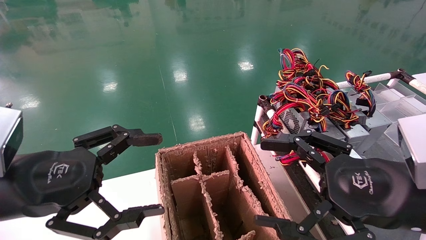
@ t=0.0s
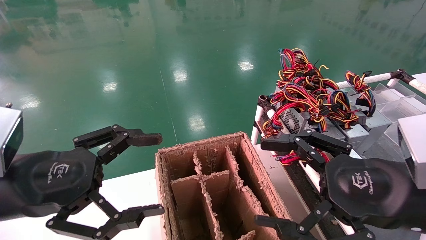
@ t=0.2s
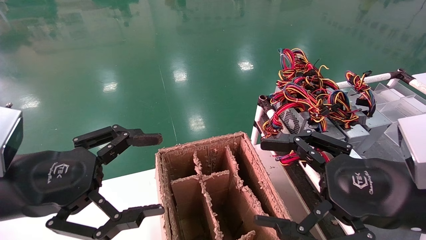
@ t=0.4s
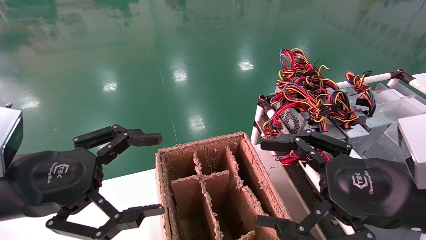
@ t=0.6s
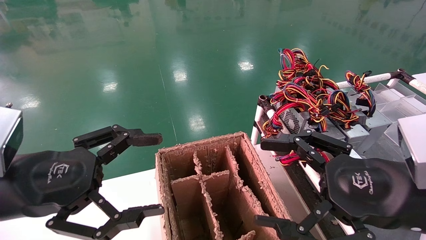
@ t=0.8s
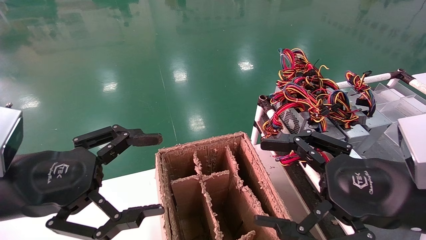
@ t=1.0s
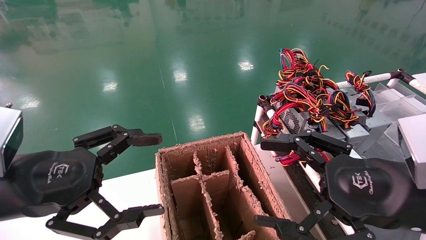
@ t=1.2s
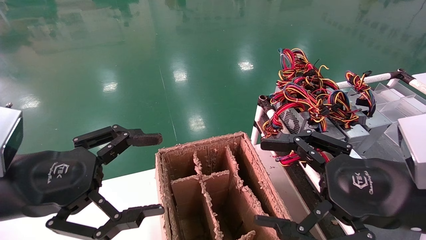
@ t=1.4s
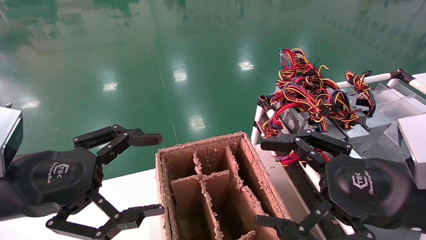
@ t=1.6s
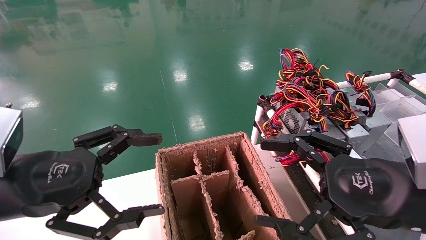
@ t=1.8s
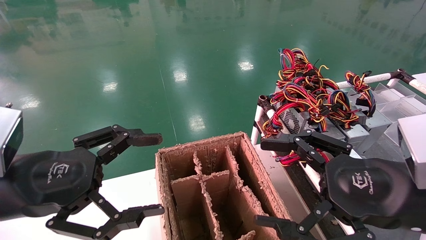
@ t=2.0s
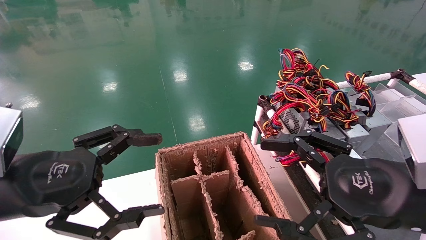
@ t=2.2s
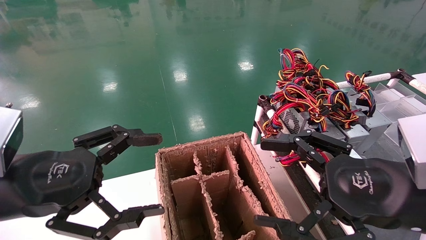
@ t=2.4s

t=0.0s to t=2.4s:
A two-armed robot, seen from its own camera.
t=0.0s to t=2.4s: Neither gripper changes place.

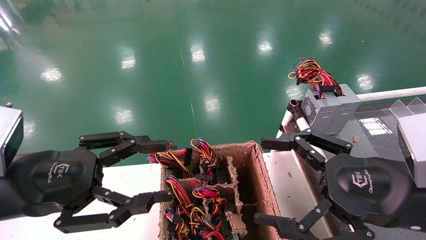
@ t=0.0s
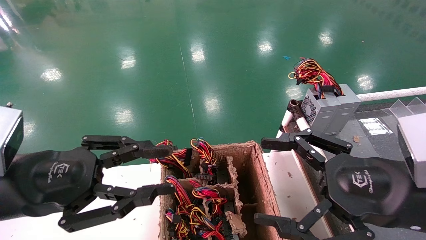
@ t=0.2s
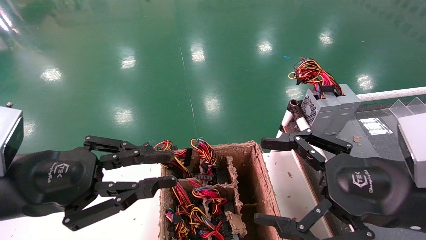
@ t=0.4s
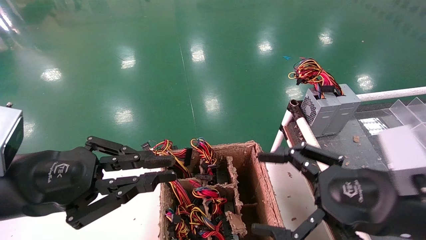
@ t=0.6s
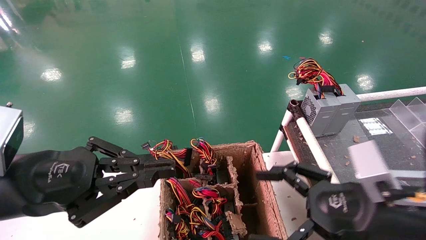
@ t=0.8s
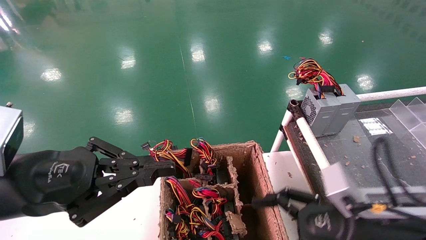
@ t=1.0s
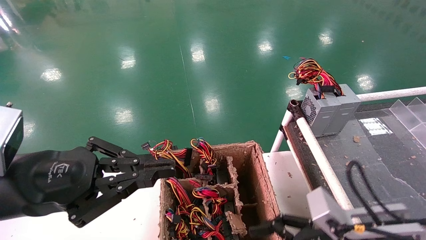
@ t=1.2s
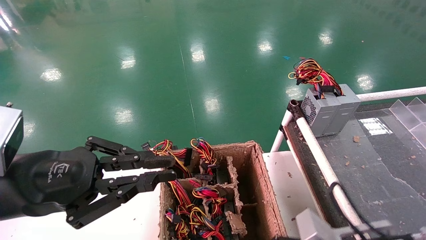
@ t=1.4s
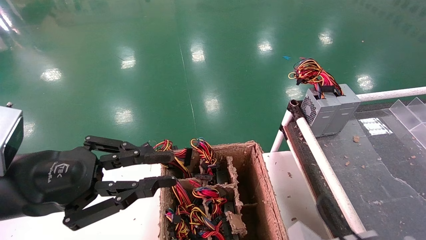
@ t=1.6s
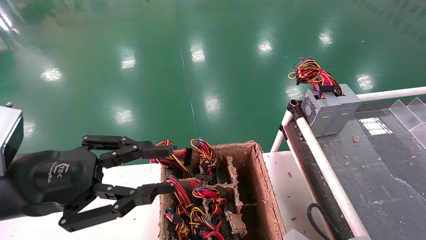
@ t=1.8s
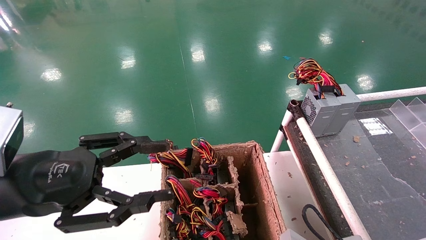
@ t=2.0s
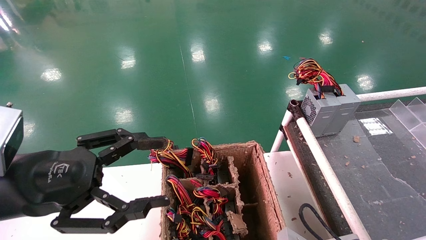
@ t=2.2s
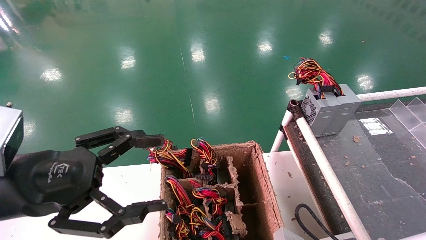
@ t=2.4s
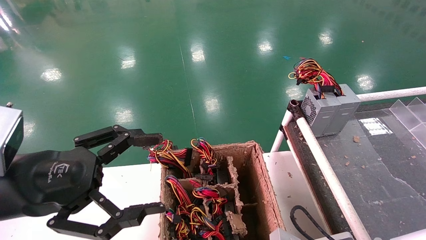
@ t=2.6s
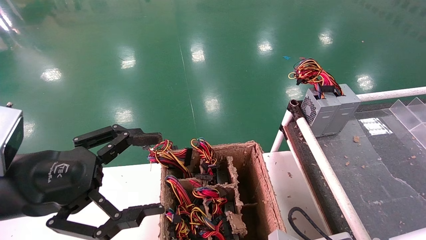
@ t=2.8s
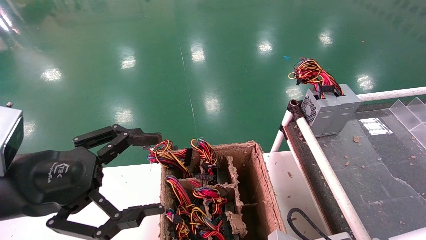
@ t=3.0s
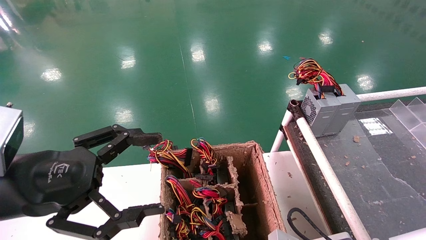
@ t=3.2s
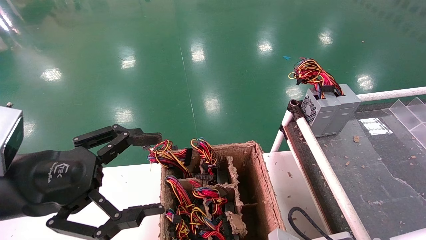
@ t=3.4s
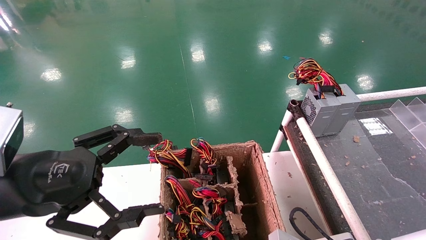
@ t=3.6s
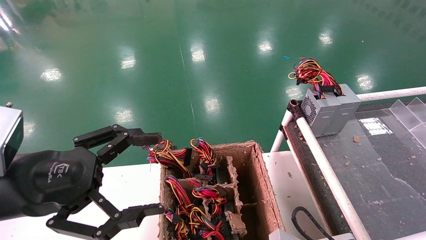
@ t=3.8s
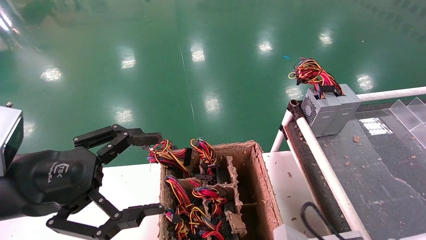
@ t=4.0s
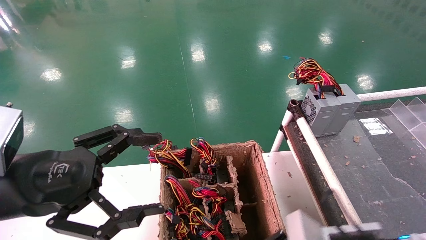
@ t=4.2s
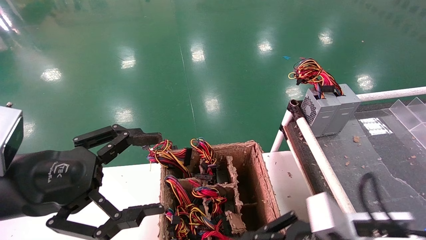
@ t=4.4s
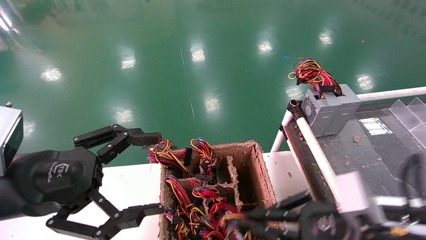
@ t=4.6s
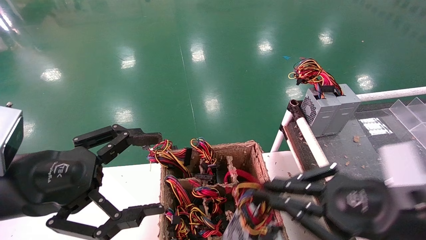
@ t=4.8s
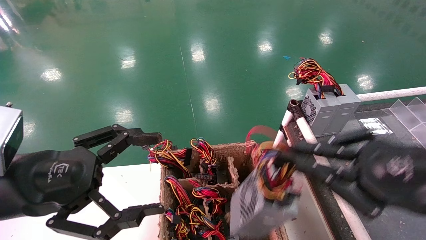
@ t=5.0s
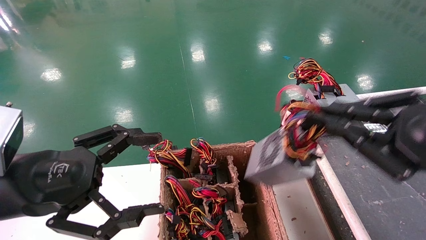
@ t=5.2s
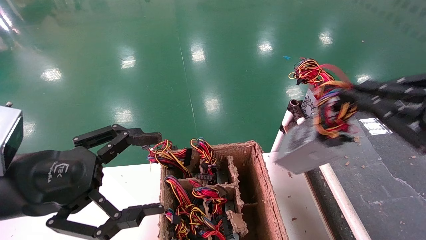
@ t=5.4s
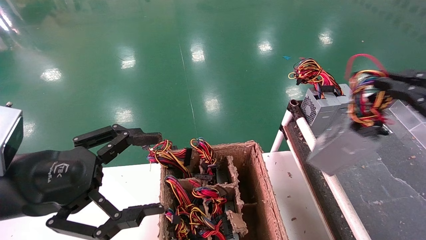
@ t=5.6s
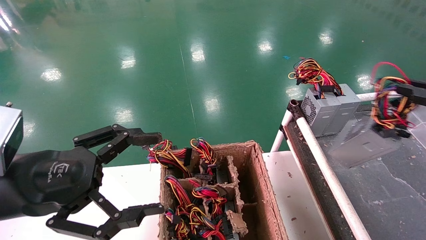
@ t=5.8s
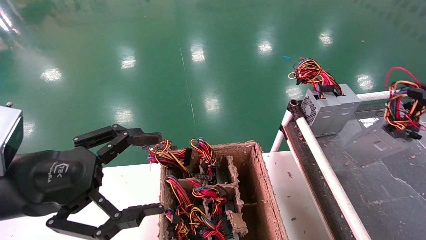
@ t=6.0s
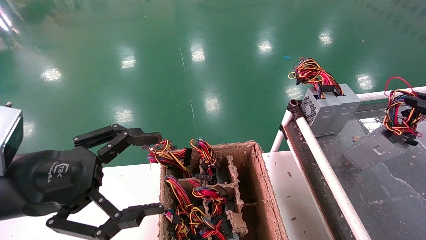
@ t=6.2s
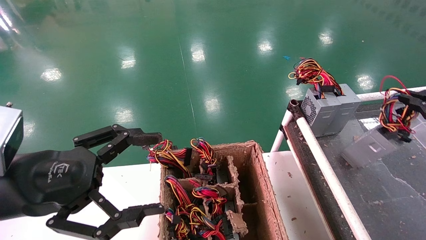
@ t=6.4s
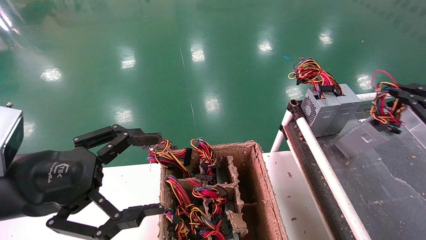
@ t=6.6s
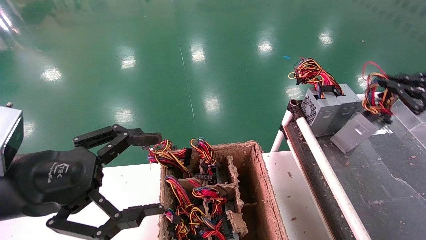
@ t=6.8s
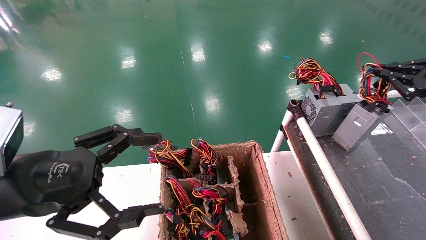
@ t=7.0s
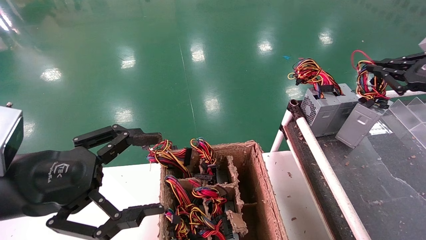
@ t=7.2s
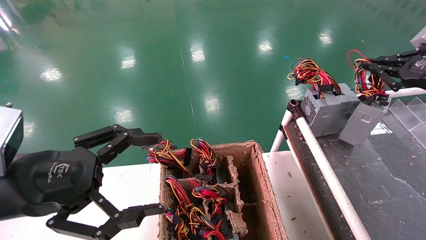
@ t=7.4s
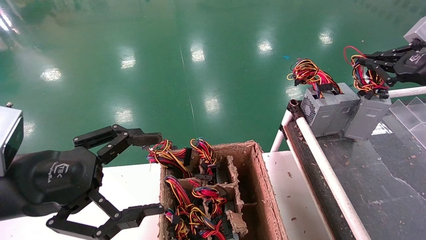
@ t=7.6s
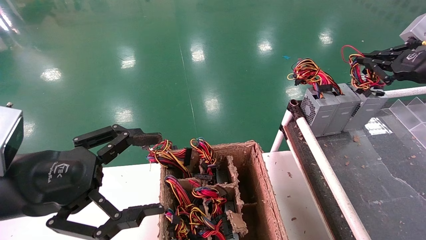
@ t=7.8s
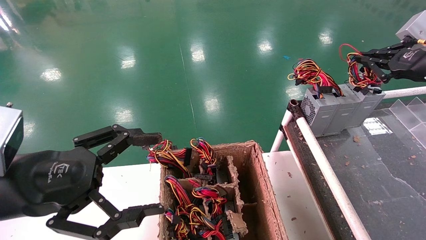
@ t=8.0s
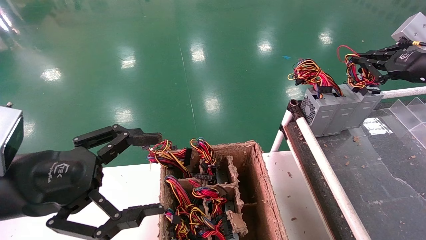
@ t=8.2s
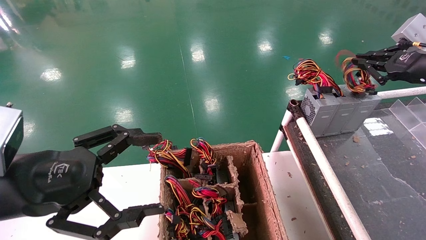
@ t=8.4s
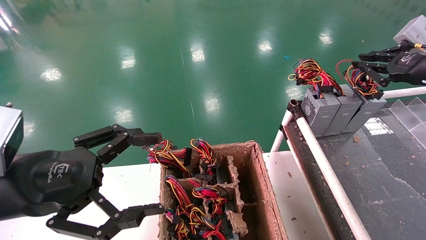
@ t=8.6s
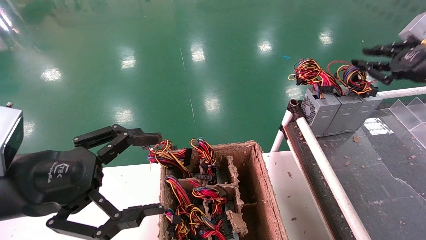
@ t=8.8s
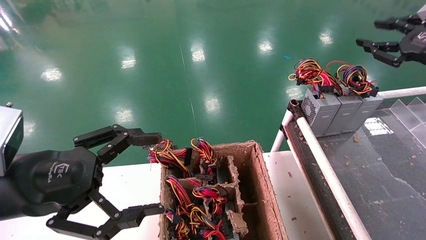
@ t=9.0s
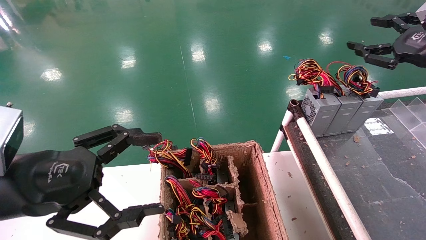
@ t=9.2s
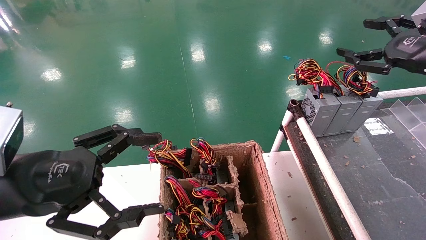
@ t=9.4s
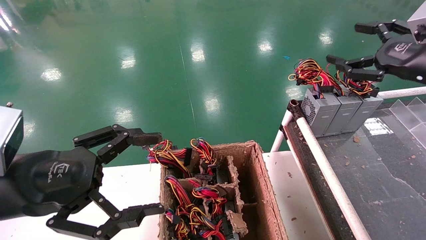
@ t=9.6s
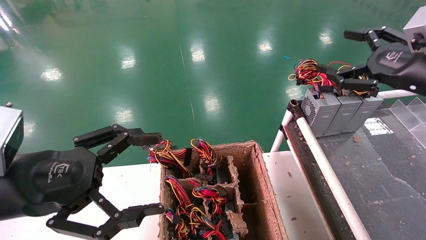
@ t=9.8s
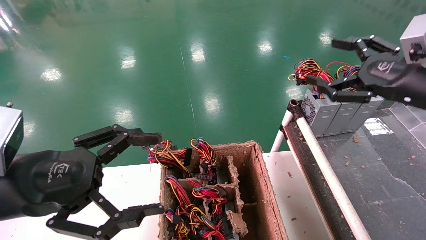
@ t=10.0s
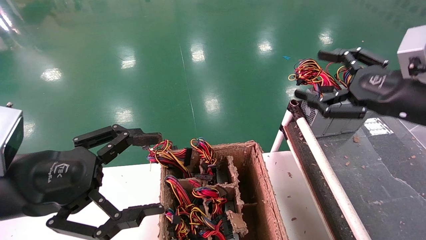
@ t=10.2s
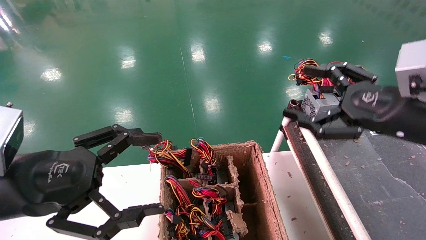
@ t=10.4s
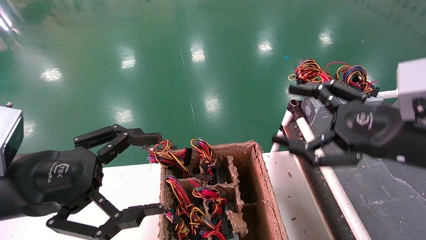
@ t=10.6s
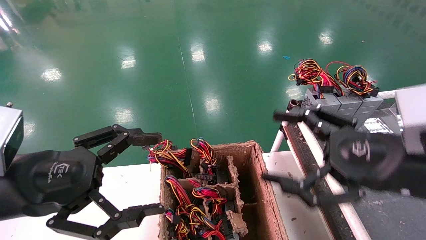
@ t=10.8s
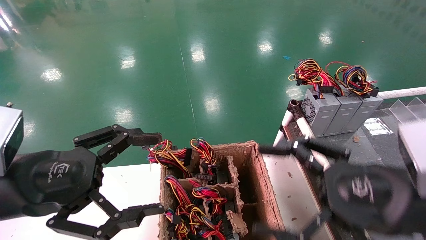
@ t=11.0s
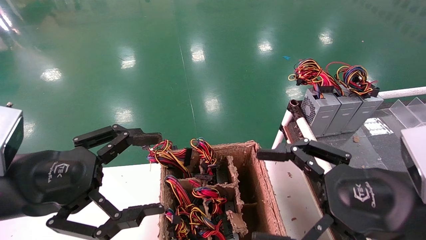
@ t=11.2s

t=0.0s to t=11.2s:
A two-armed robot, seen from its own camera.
Step, t=0.8s to t=3.2s: Grab and lift the power supply from the large box.
Step, t=3.4s to t=8.4s: Place the power supply on the operating table.
t=0.0s to t=1.6s: The right gripper heads downward, covering some 15 cm. The left gripper closes.
t=1.6s to t=3.2s: The left gripper opens; the right gripper closes its fingers.
t=3.2s to t=4.8s: The right gripper travels upward and to the right by about 15 cm.
t=4.8s to t=6.4s: The right gripper moves to the right, some 20 cm.
t=6.4s to t=8.0s: The right gripper travels forward and upward by about 15 cm.
t=8.0s to t=9.6s: The right gripper ends up about 5 cm from where it was, and opens up.
t=9.6s to t=11.2s: The right gripper is displaced backward, to the left and downward by some 25 cm.
